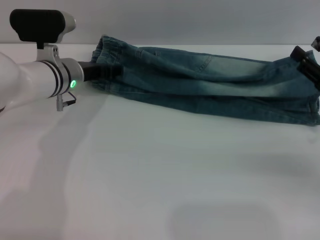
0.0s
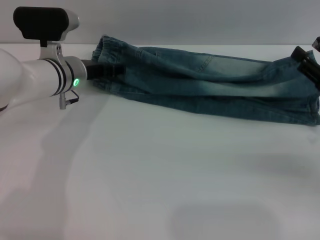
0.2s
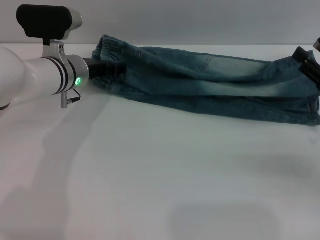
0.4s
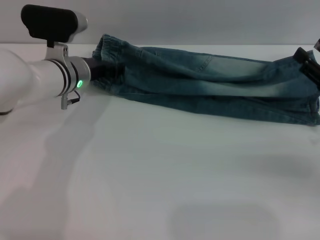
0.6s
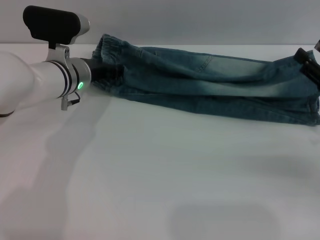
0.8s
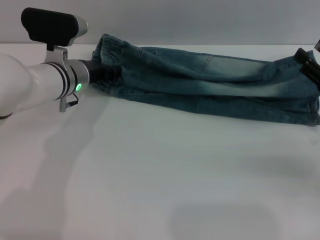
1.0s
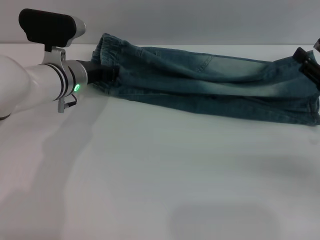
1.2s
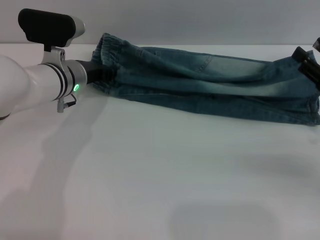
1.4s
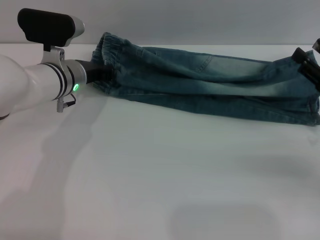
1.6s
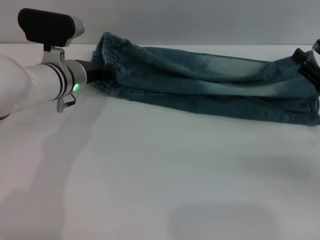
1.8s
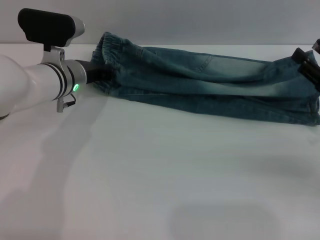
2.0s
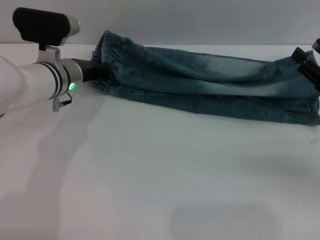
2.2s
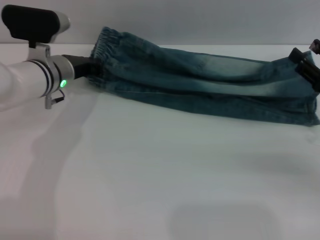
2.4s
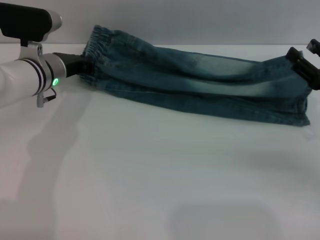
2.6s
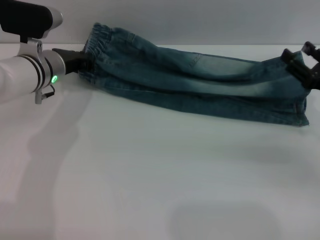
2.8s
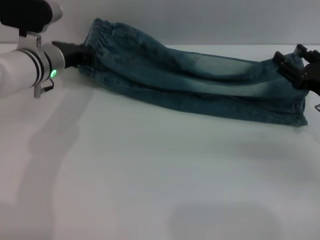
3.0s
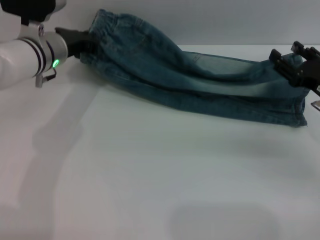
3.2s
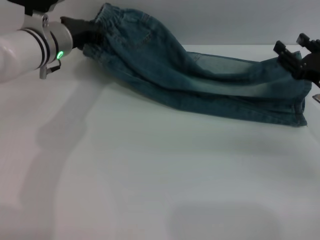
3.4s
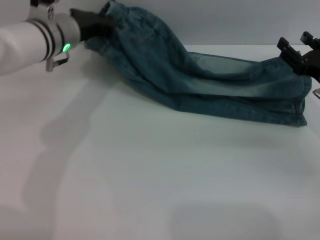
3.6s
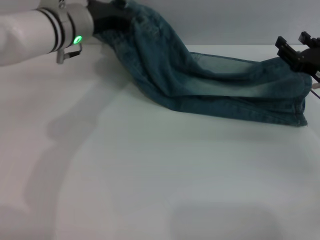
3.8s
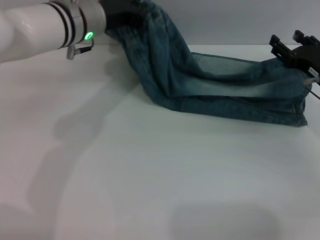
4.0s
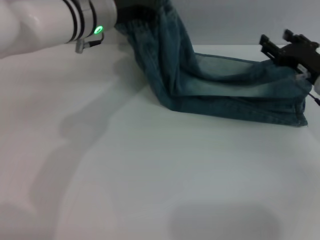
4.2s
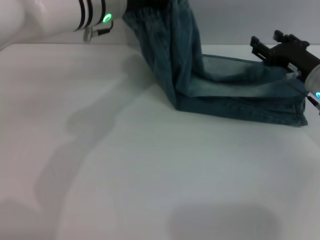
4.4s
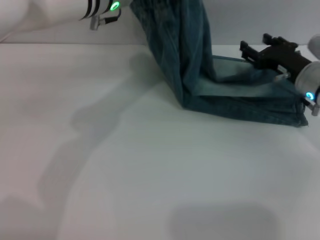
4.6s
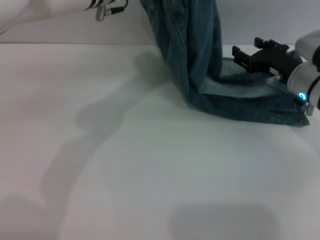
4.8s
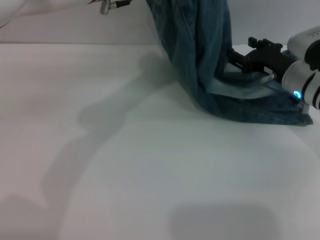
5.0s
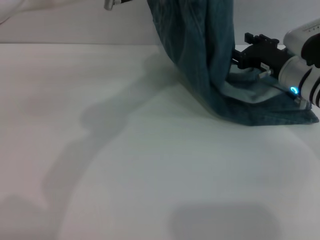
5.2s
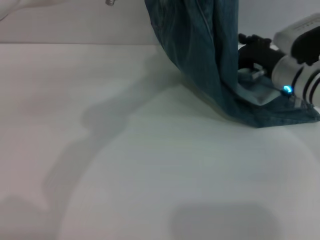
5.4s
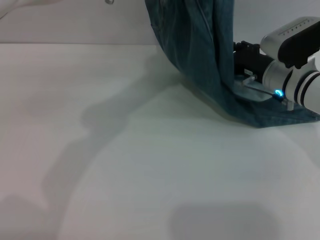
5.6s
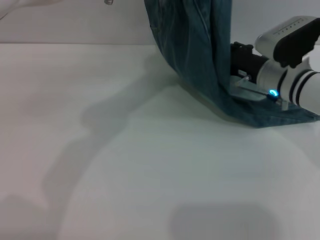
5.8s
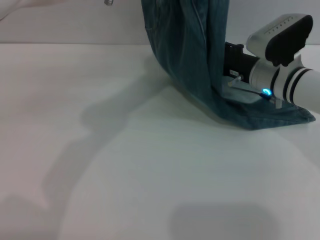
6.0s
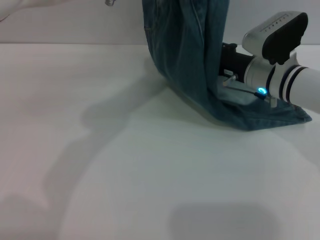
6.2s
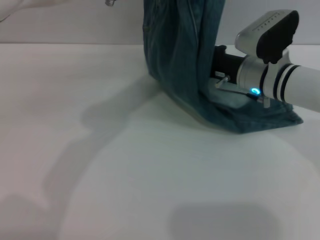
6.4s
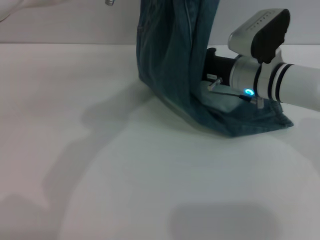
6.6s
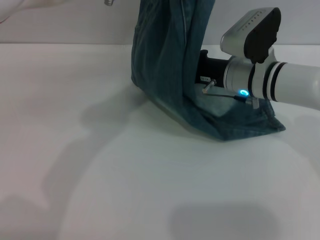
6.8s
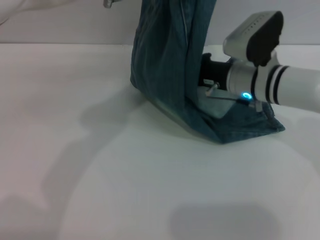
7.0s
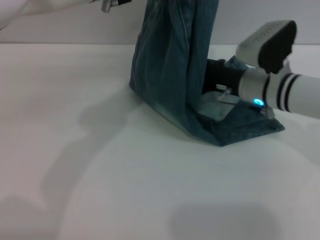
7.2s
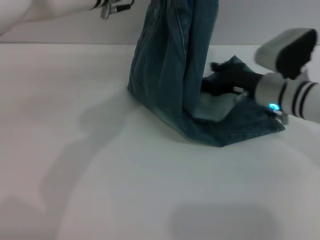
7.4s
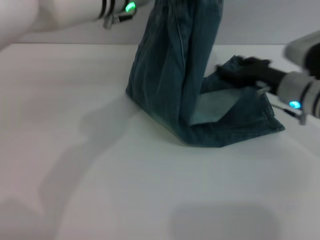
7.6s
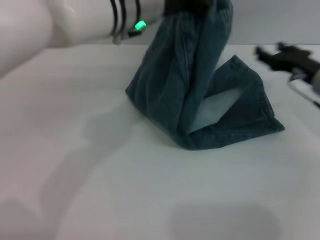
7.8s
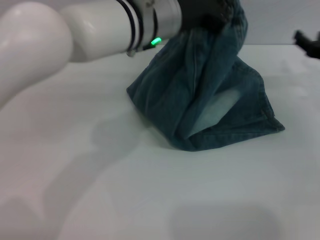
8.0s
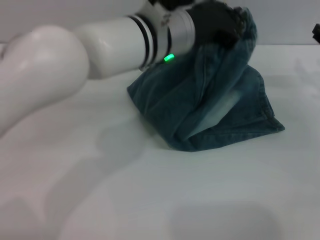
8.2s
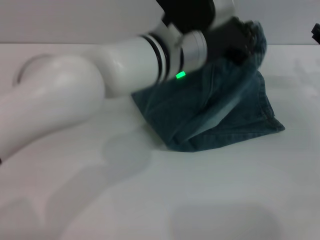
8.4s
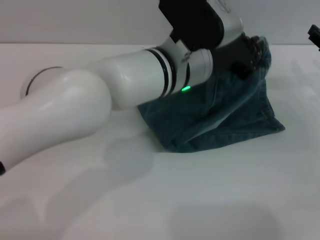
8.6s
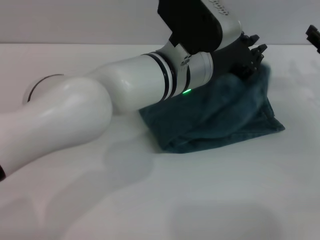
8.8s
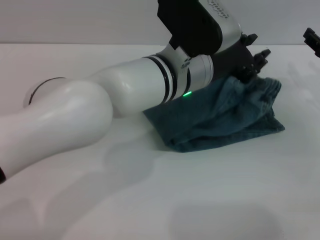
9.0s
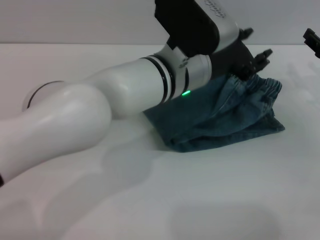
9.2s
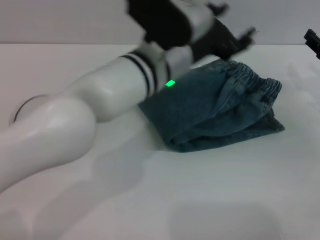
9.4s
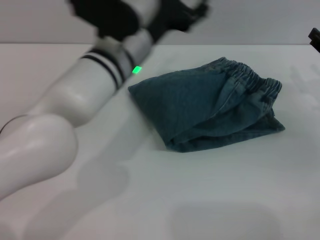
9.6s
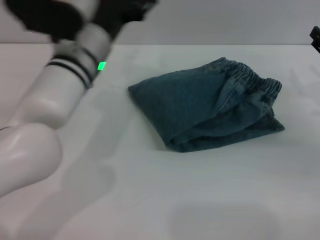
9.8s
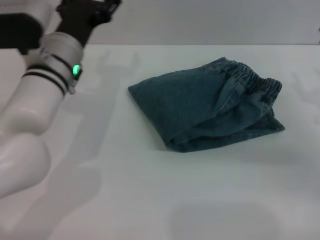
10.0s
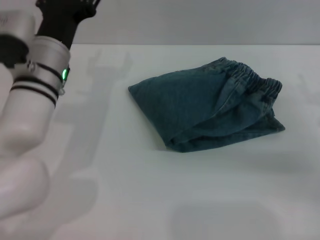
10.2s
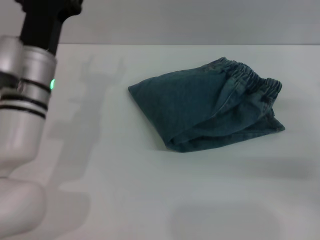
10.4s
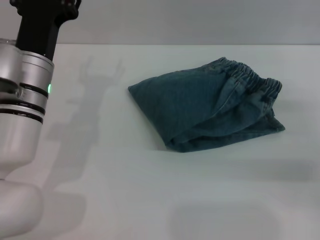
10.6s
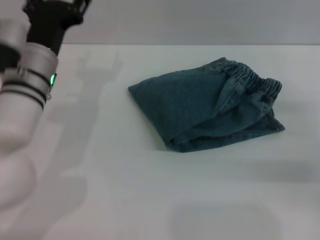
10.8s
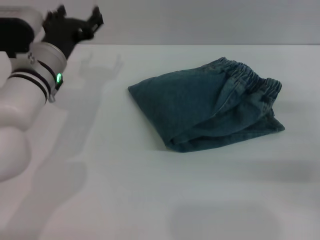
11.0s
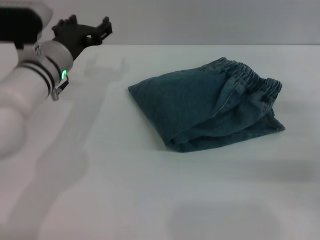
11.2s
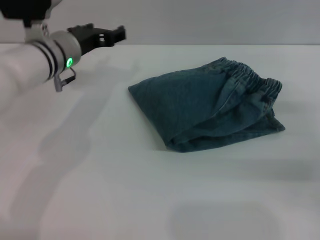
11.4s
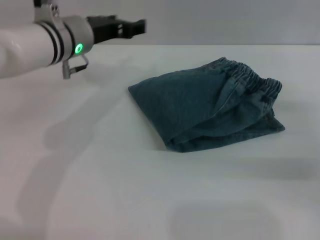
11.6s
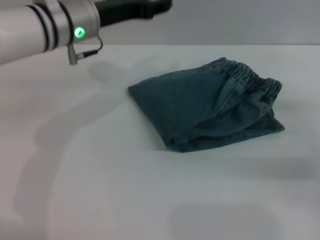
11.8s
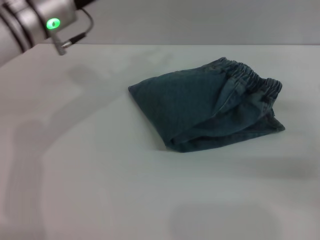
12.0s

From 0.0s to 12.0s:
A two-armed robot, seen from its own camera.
Step, from 0.0s to 9.4s: Fold the pants from left to right with the left gripper.
From 0.0s to 1.6s: The left gripper closes.
From 1.6s to 3.0s: The grippers stay close to where they were, moving slightly.
From 3.0s to 4.4s: The left gripper shifts some 15 cm upward and to the right; the right gripper moves forward, about 5 cm.
From 4.4s to 6.0s: The left gripper is displaced upward by some 5 cm; the right gripper heads to the left, covering roughly 10 cm.
From 6.0s to 7.6s: The right gripper changes place by approximately 5 cm.
From 7.6s to 9.0s: The left gripper is displaced downward, backward and to the right by roughly 10 cm, while the right gripper travels to the right by about 10 cm.
From 9.0s to 10.4s: The right gripper goes approximately 10 cm backward. The left gripper travels to the left by roughly 15 cm, and opens.
From 10.4s to 12.0s: The left gripper heads upward and forward, covering approximately 10 cm.

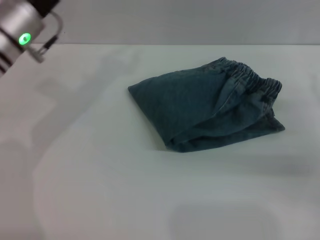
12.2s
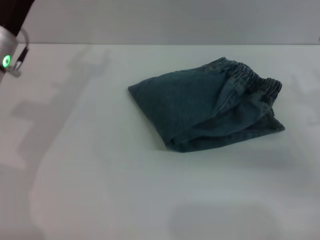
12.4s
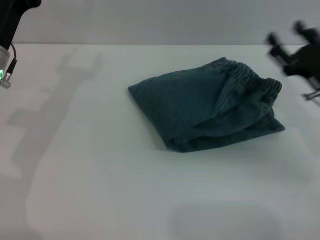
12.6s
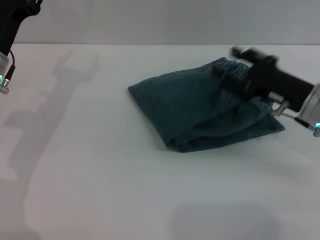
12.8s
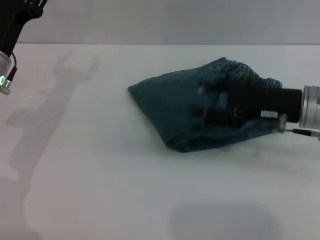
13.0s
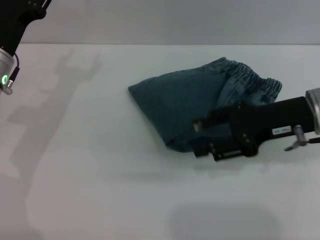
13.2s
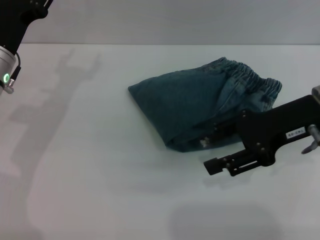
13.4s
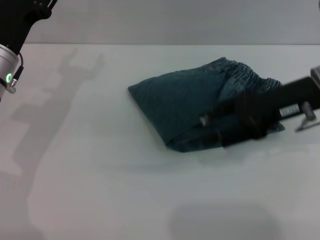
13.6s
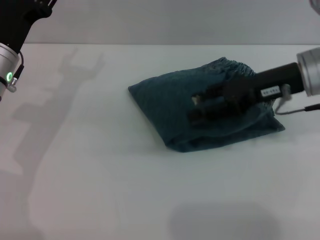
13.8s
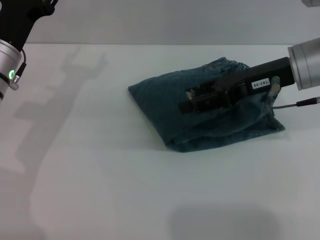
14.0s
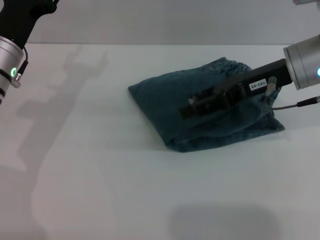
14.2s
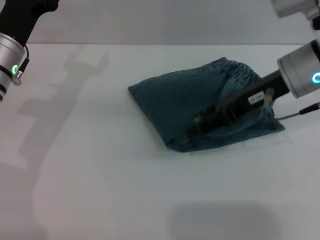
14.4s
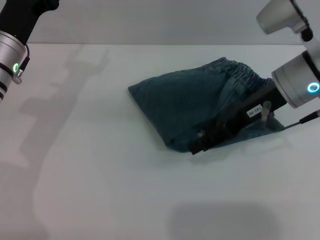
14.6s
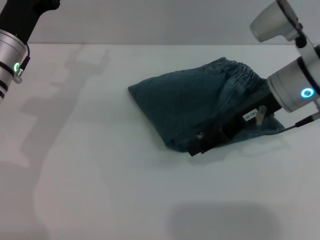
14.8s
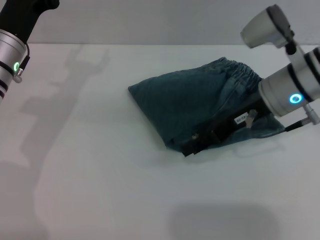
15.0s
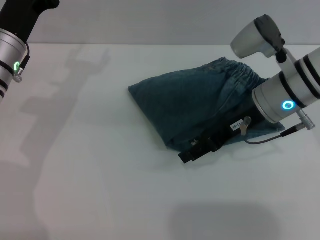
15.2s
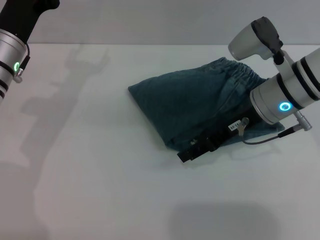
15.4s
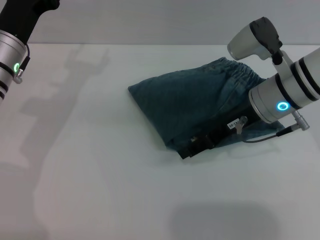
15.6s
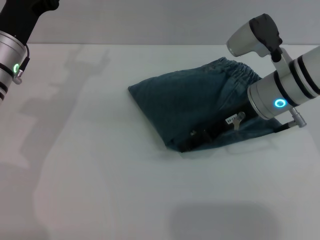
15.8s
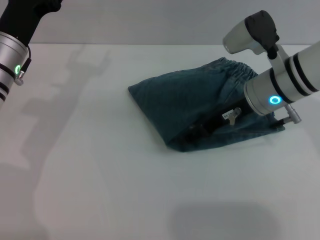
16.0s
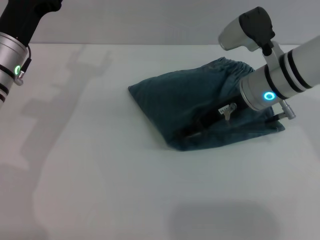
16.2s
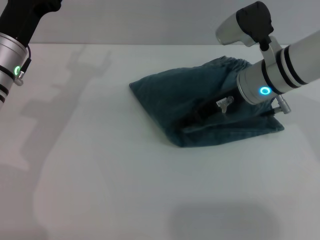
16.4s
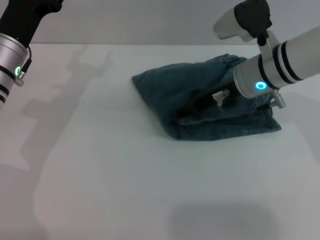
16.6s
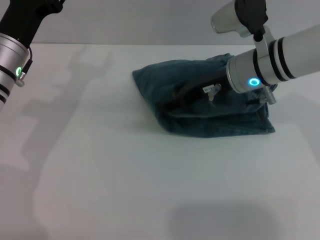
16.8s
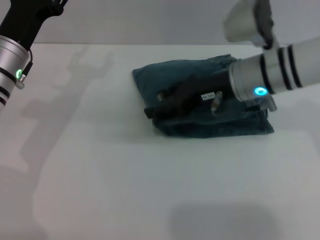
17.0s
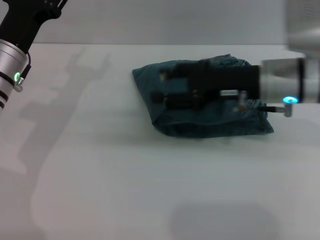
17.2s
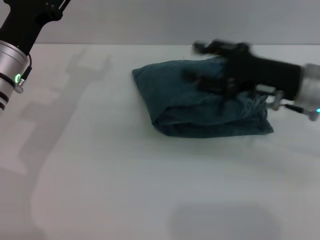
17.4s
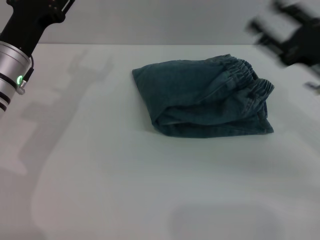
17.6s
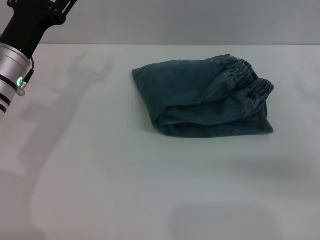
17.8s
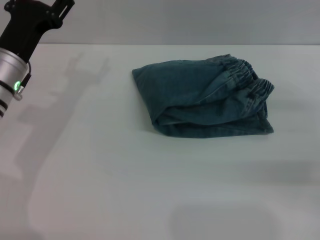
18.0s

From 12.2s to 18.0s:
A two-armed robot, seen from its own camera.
Step, from 12.2s to 17.2s: Place the folded trousers onto the center area with the right grippers.
From 12.2s to 13.6s: The right gripper goes about 15 cm upward and to the left. Meanwhile the left gripper shifts some 5 cm downward, and opens its fingers.
From 13.6s to 15.0s: The right gripper shifts roughly 5 cm to the left.
From 15.0s to 16.6s: The grippers make only small movements.
From 16.6s to 18.0s: The right gripper heads to the right and backward, covering about 25 cm.

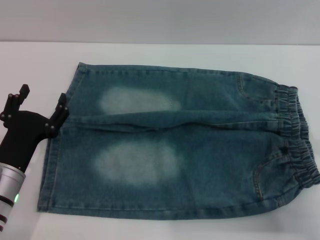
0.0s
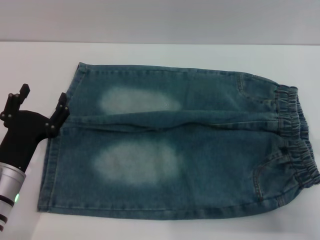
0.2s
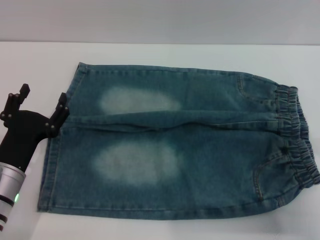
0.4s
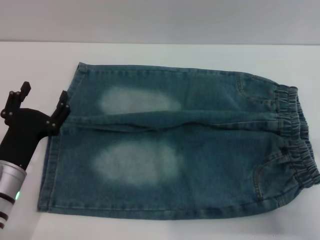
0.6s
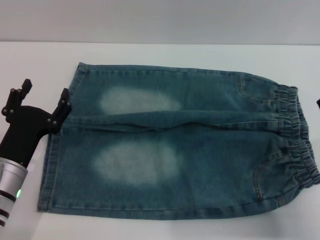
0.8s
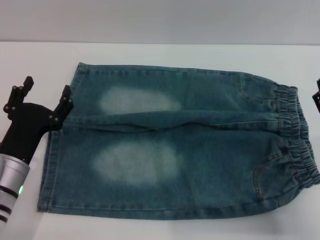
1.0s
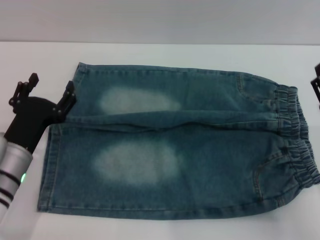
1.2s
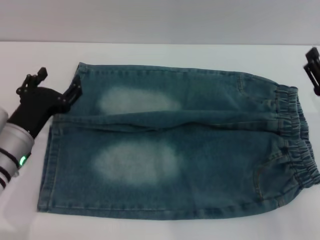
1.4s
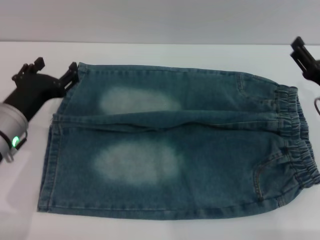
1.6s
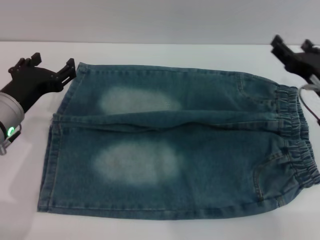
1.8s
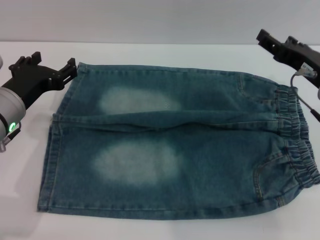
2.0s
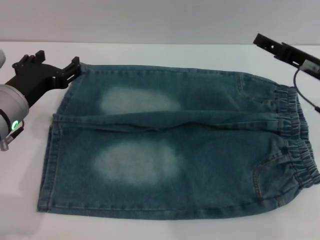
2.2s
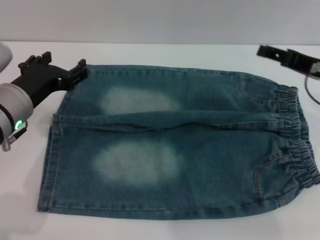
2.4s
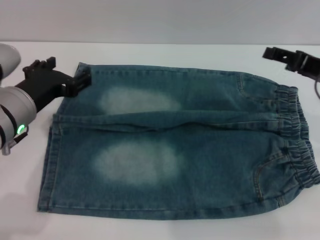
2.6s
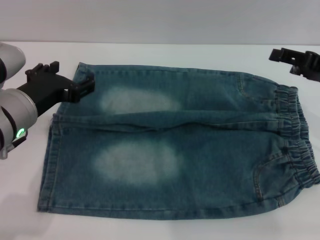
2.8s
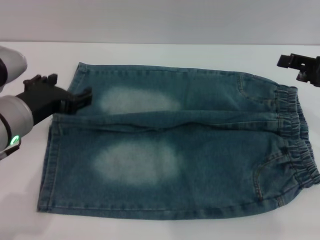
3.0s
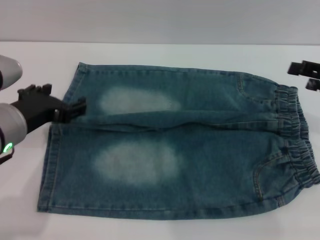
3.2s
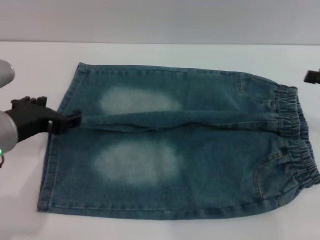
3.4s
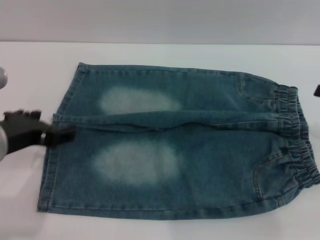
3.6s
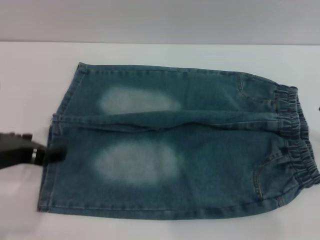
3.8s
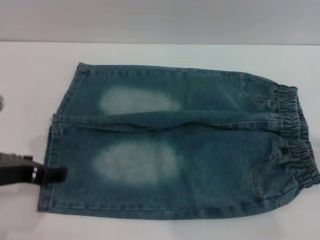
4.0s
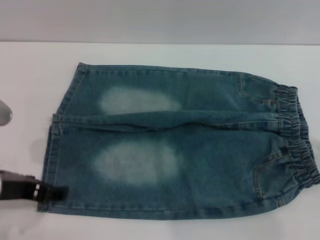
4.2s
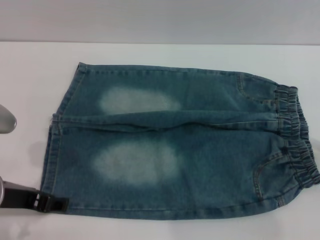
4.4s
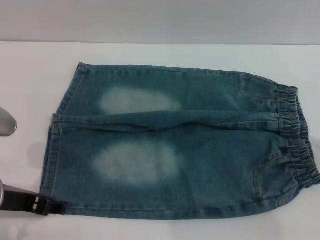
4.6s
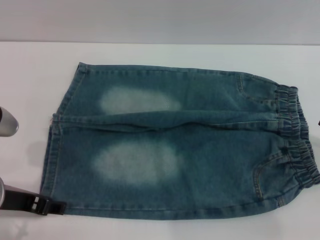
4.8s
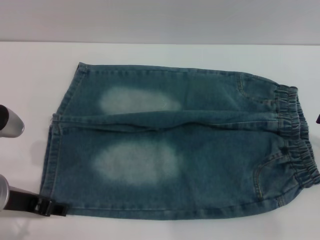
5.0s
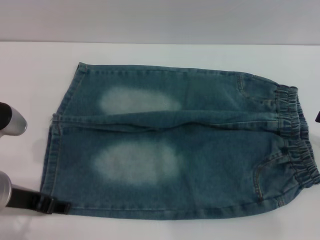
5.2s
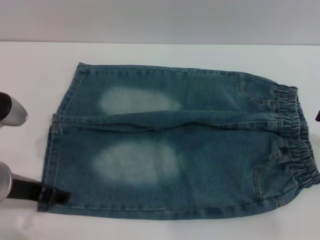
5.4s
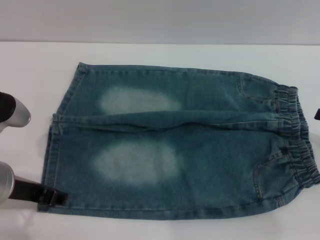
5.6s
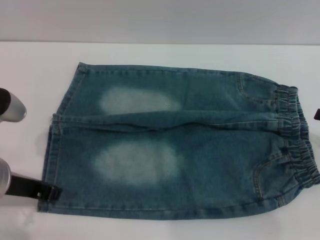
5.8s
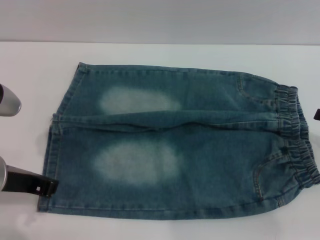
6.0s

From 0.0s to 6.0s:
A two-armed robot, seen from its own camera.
From 0.0s to 1.6s: The two grippers go about 10 cm forward and upward.
From 1.6s to 3.0s: Both grippers travel together upward, about 10 cm.
From 3.0s to 4.4s: The left gripper travels backward by roughly 5 cm. The right gripper is displaced to the right and backward by roughly 10 cm.
From 4.4s to 6.0s: The left gripper closes its fingers.
